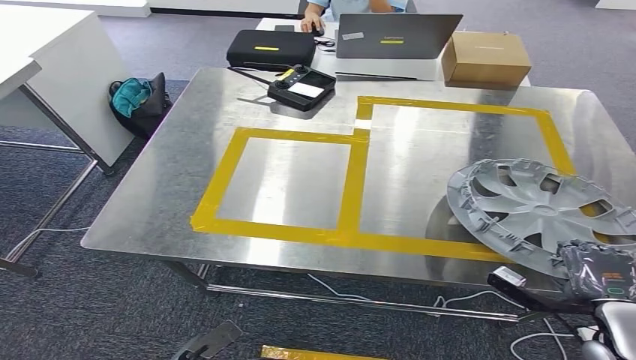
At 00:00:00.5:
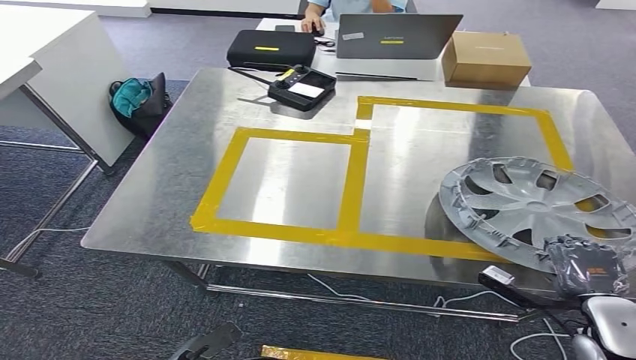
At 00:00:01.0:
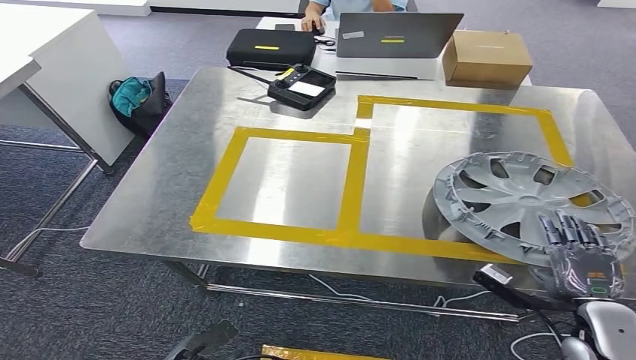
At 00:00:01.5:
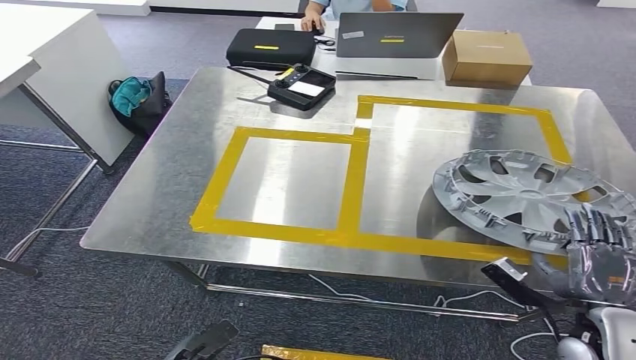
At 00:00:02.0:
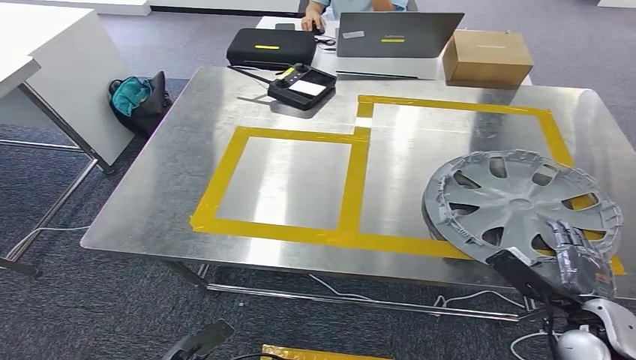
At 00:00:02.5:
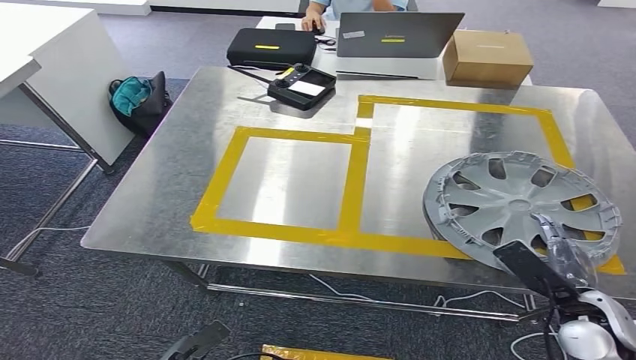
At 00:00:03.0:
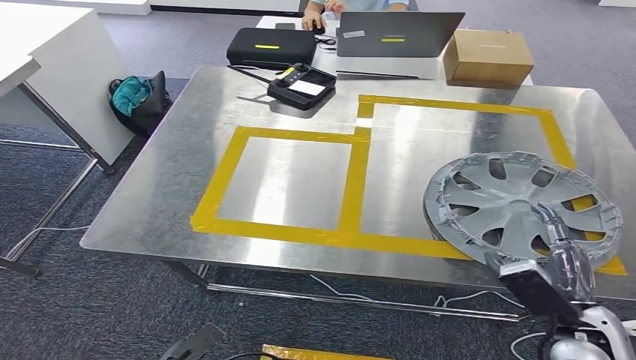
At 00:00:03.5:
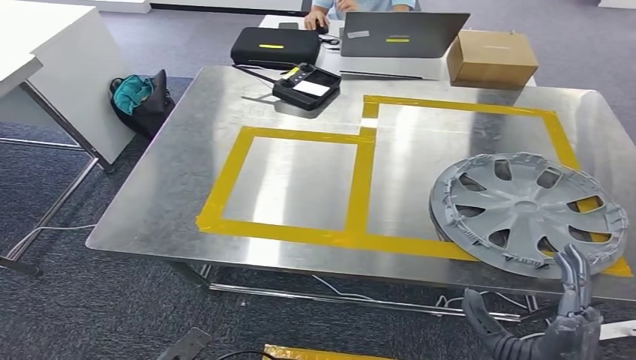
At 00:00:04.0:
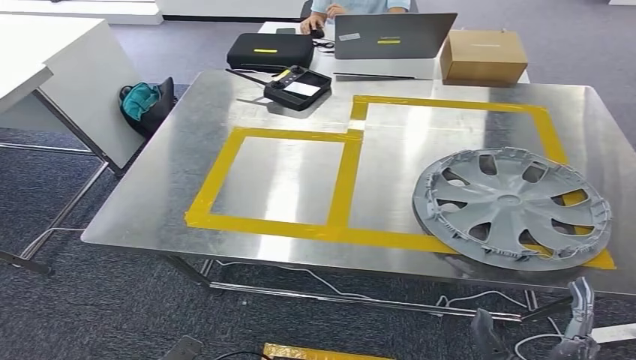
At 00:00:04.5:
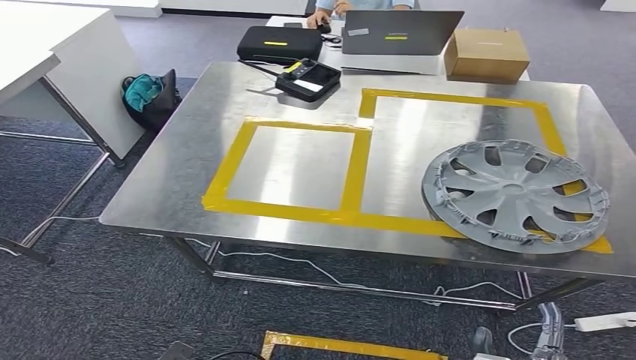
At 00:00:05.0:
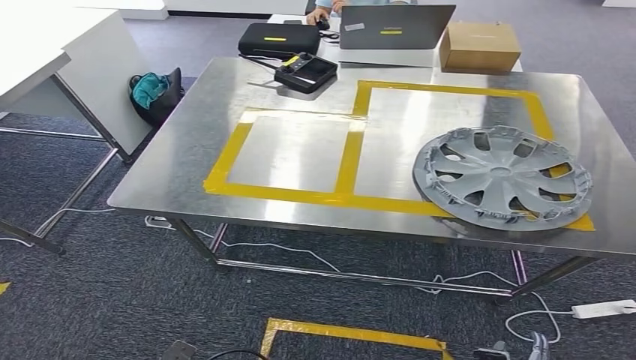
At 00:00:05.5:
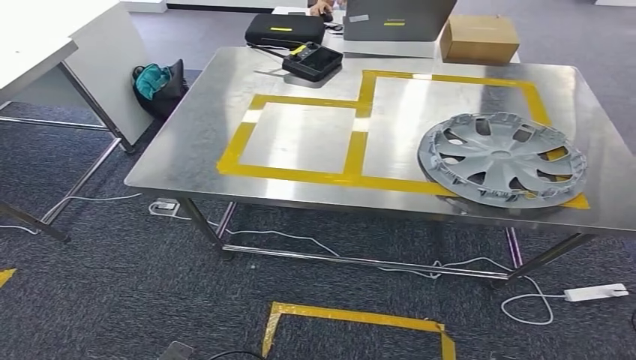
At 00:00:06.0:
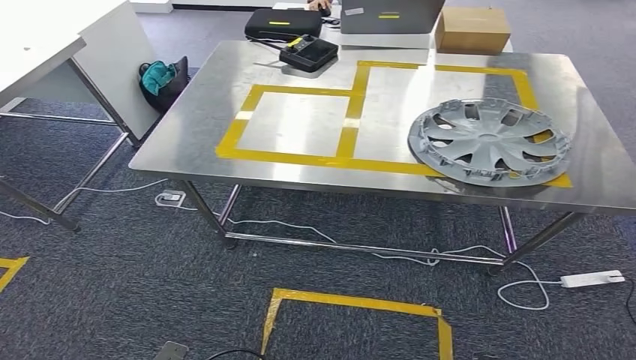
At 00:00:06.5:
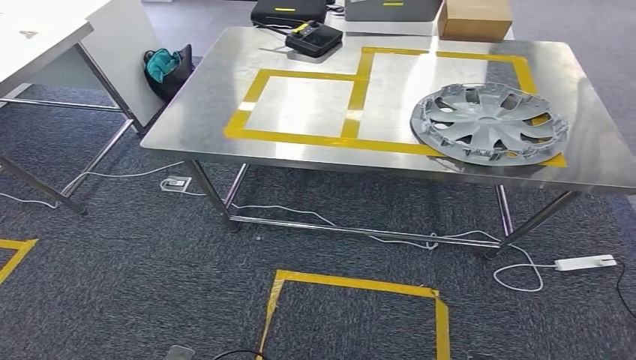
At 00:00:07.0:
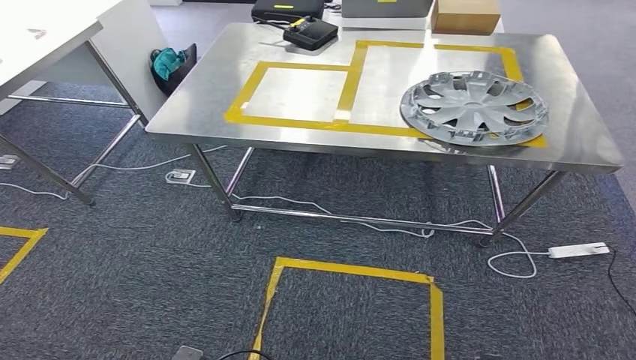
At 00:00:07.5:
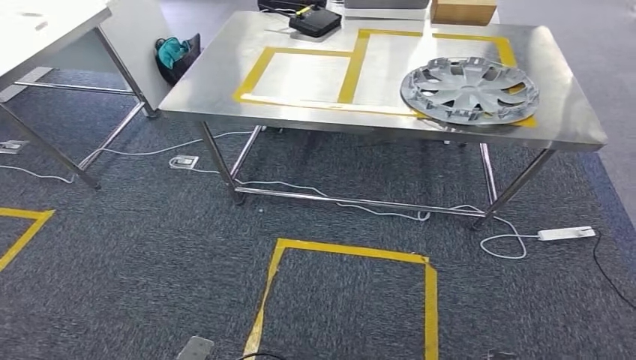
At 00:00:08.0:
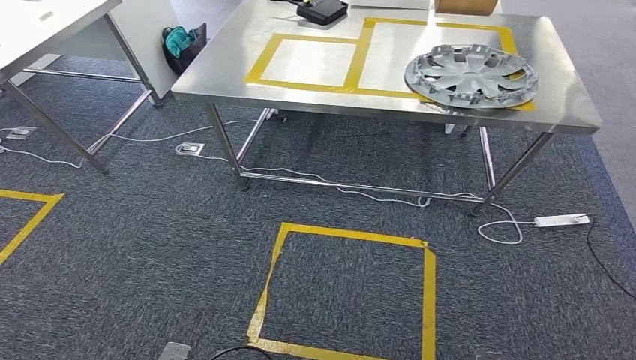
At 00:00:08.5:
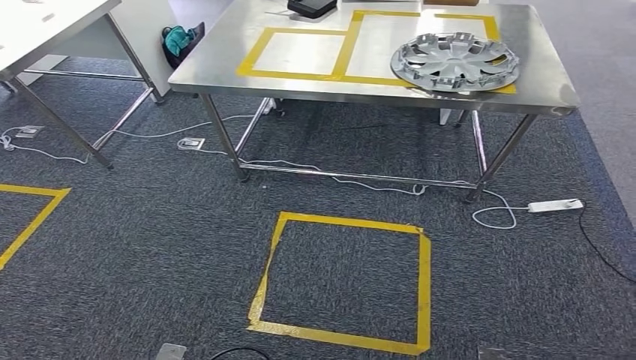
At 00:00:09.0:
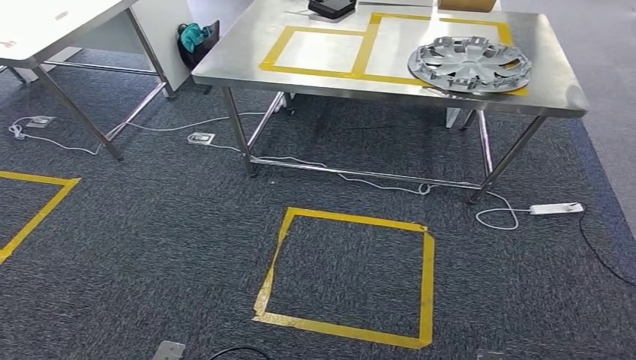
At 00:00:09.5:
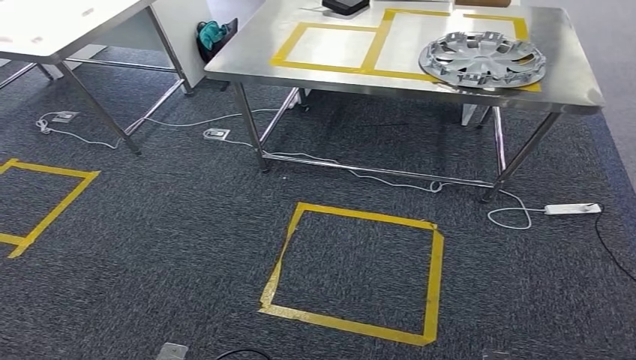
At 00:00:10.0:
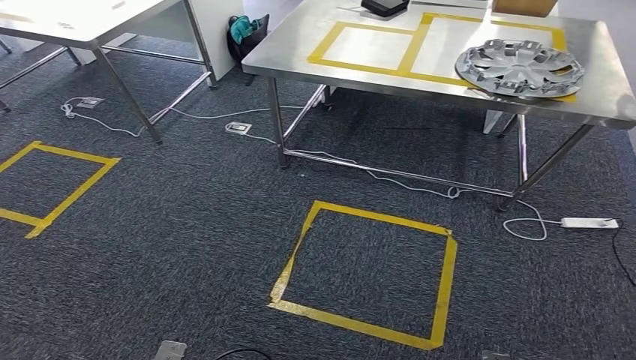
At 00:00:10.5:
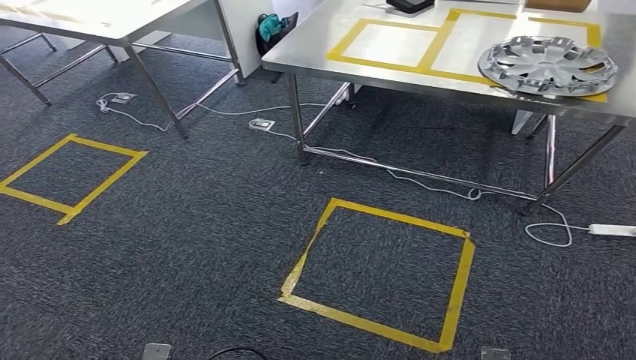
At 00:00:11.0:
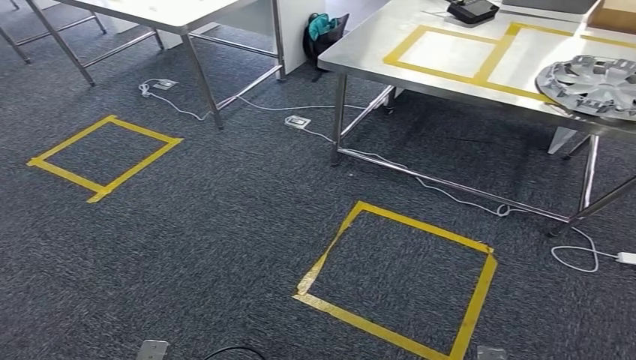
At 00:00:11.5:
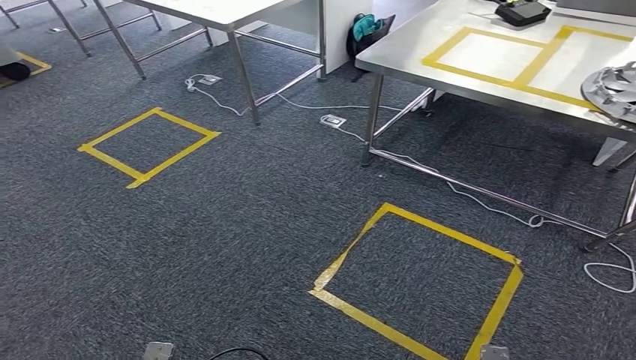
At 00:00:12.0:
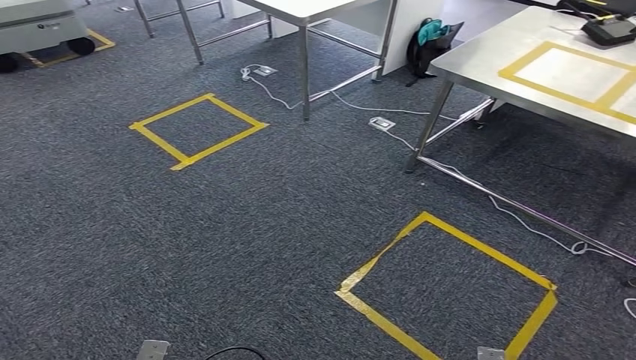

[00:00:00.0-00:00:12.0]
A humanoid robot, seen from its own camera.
Step, 00:00:00.0 to 00:00:05.5: Insert the small component into the corresponding slot on the workbench.

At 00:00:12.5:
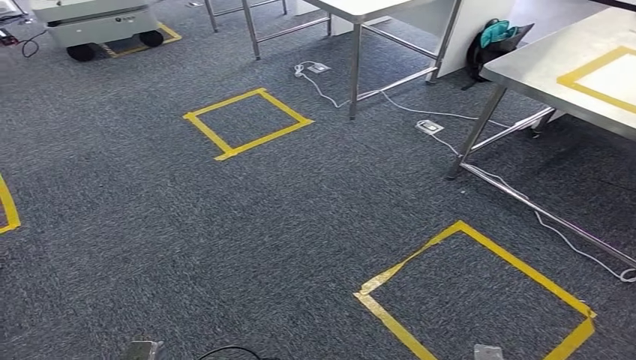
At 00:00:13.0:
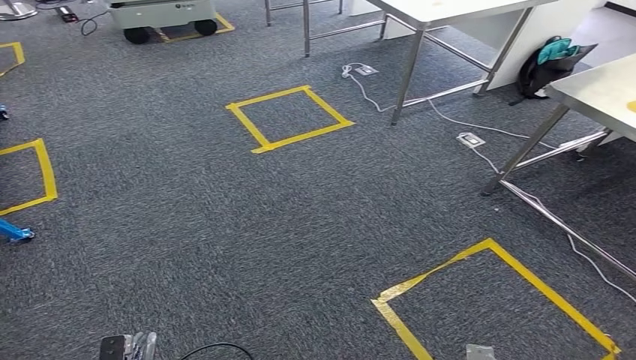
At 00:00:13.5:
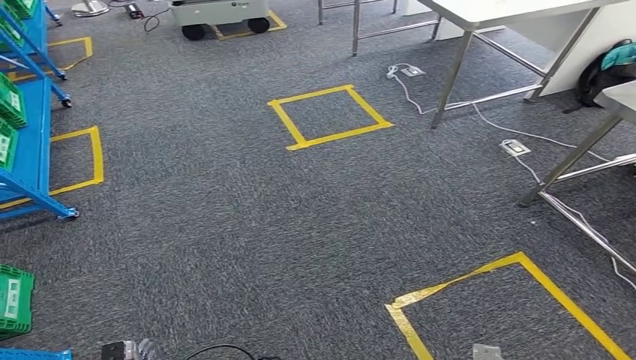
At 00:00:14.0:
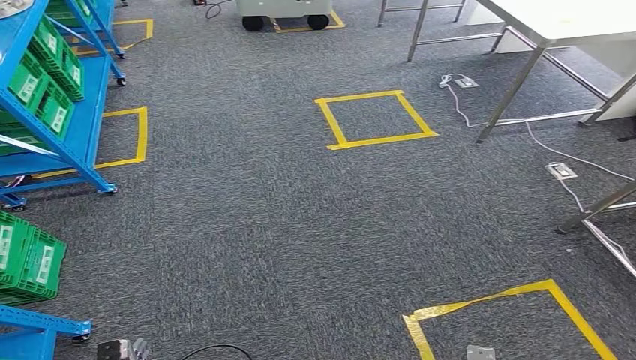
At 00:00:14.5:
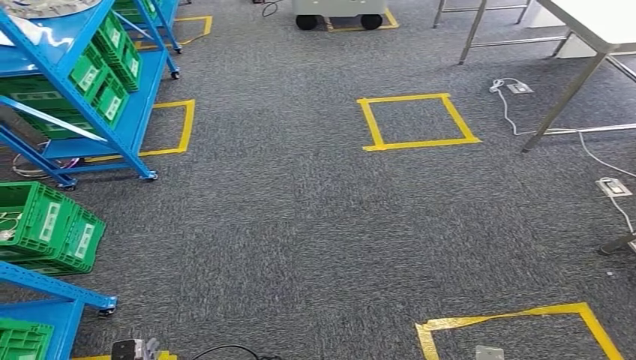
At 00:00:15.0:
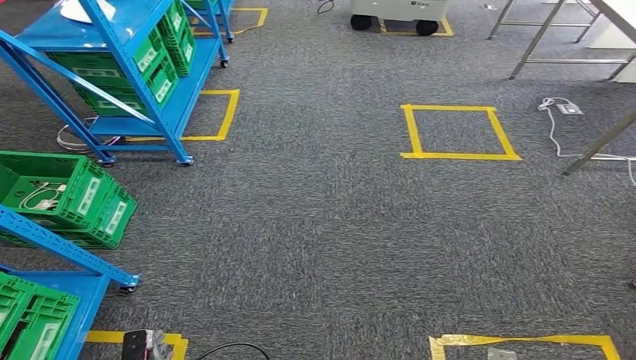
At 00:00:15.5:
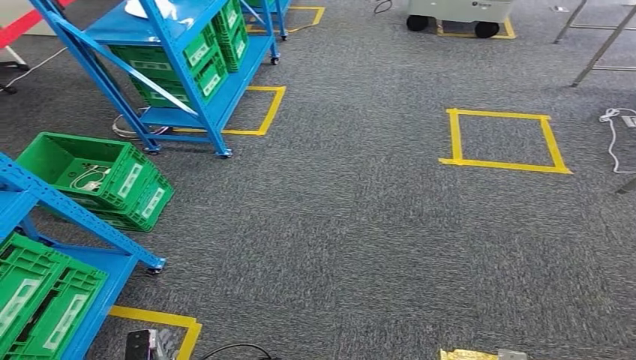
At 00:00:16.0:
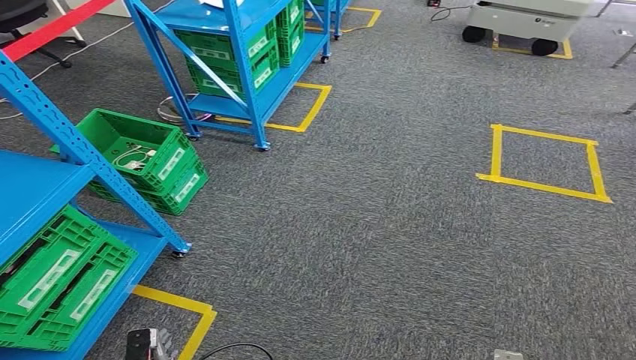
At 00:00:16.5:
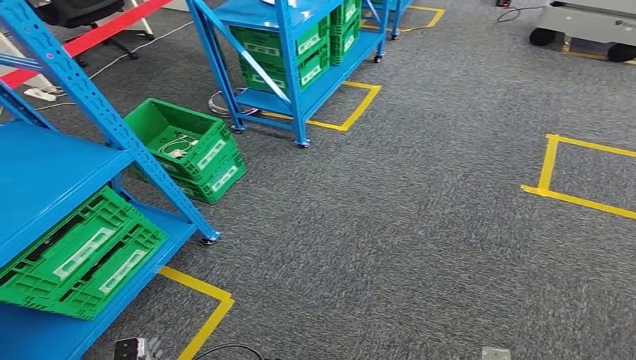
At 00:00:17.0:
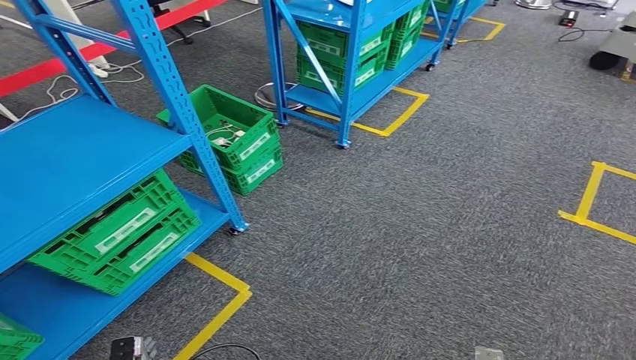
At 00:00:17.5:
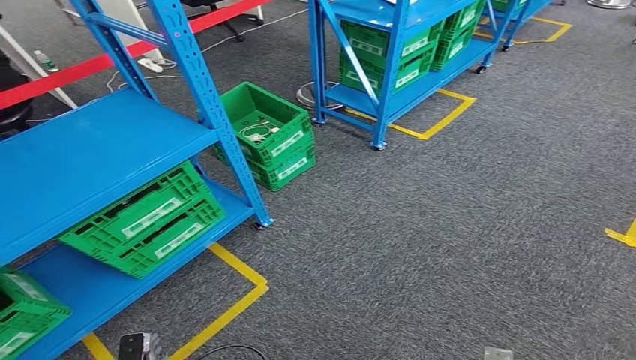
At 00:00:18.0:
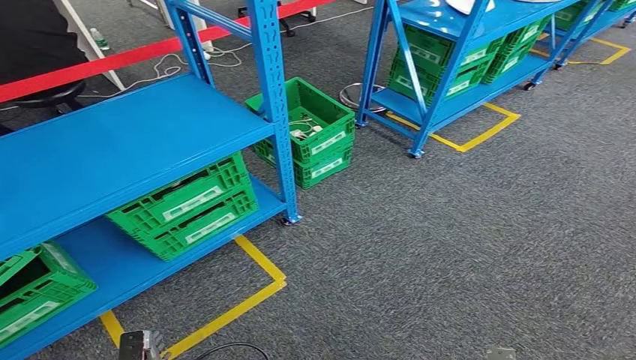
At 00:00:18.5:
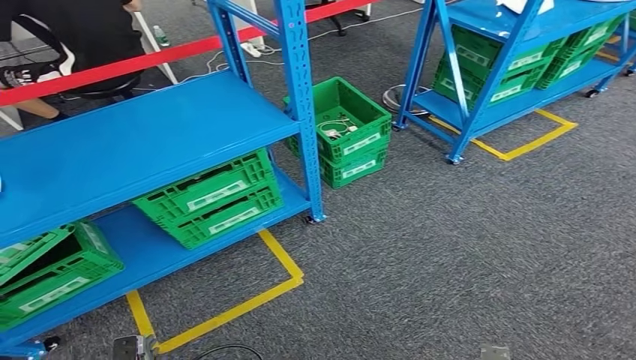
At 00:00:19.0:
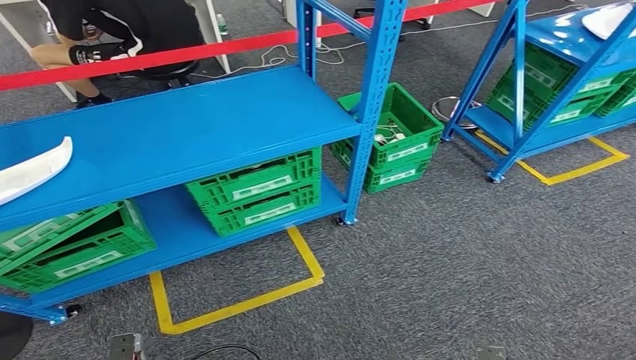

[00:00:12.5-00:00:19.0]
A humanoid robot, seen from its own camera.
Step, 00:00:12.5 to 00:00:19.0: Return to the initial position at the workbench.

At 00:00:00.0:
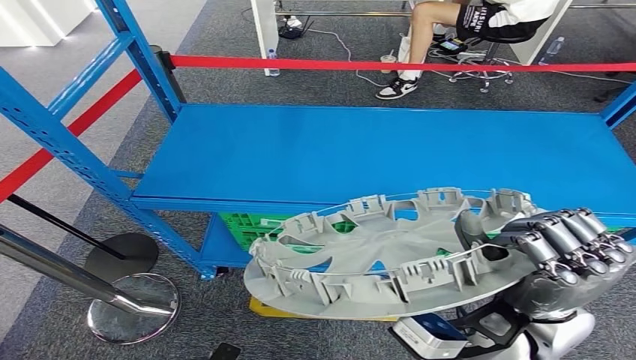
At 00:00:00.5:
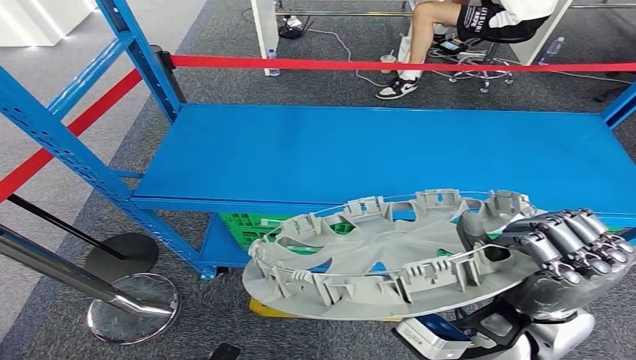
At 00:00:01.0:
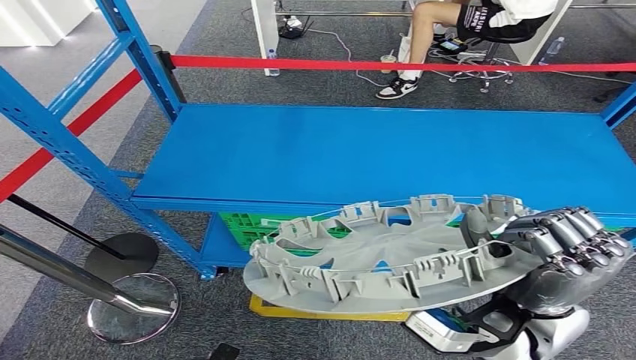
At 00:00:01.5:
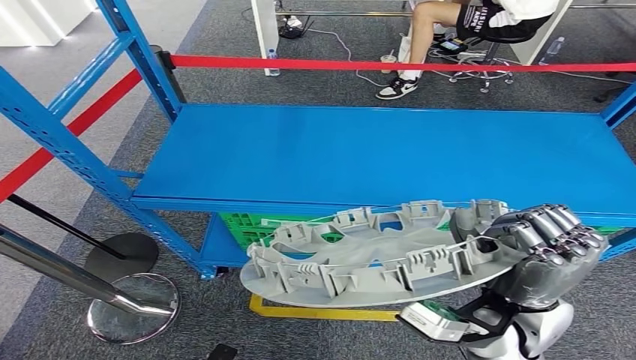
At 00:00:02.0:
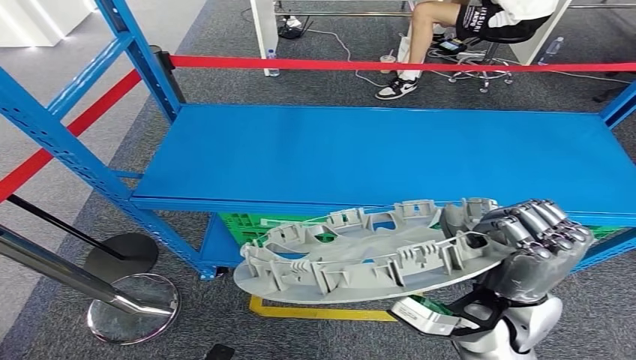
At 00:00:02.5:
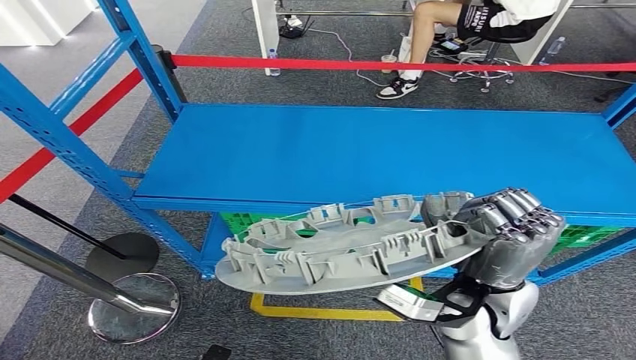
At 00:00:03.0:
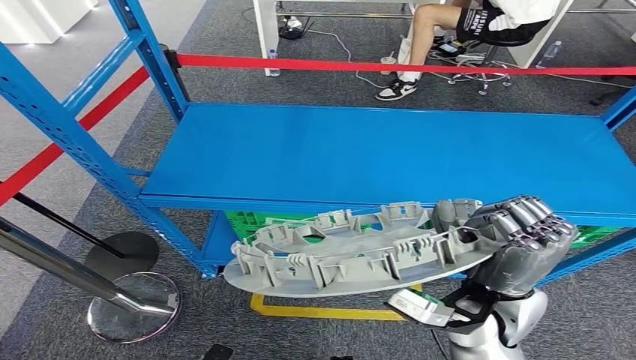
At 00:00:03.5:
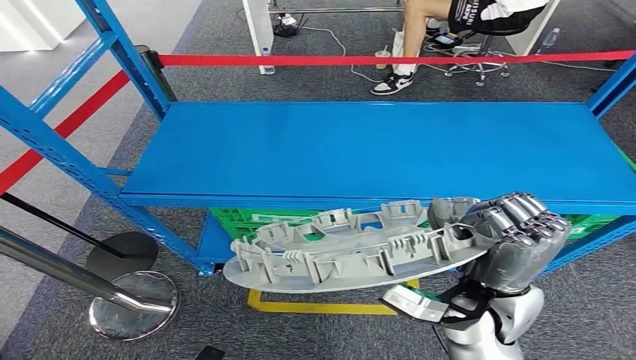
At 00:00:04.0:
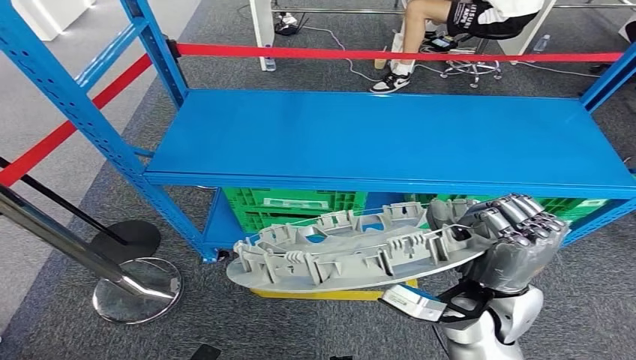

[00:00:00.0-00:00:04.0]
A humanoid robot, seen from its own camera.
00:00:00.0 to 00:00:02.0: The hands stay close to where they were, moving slightly.
